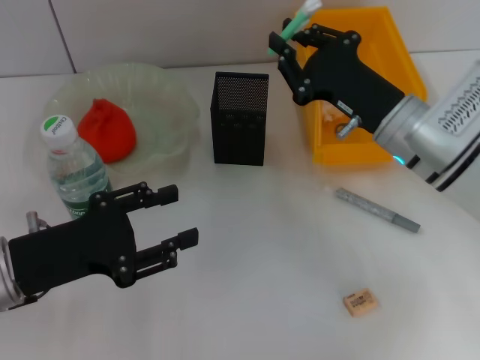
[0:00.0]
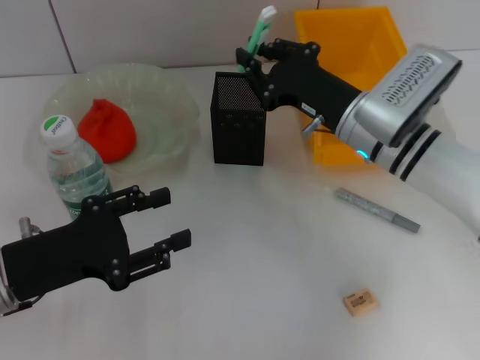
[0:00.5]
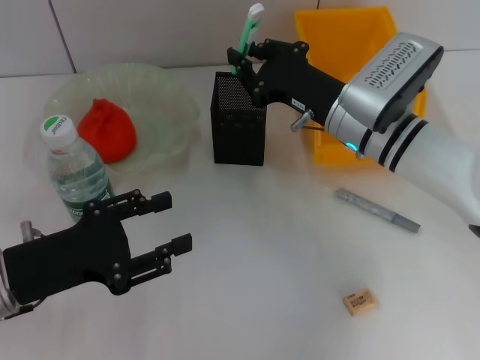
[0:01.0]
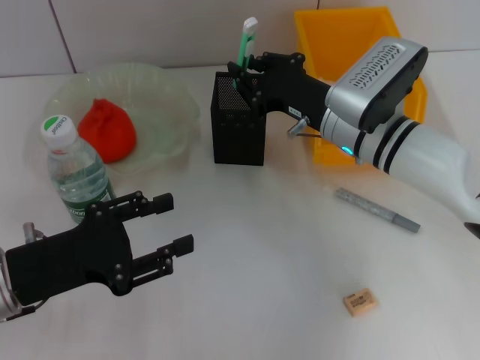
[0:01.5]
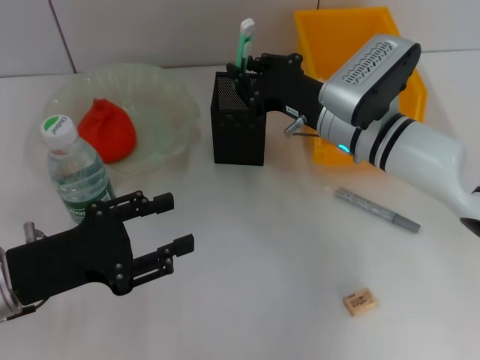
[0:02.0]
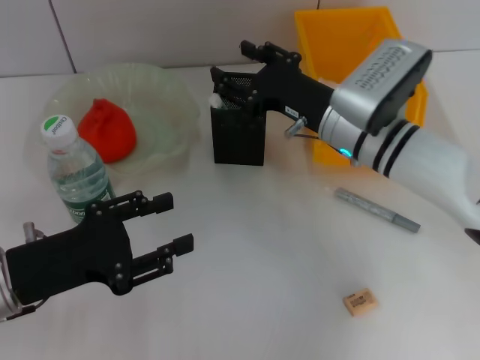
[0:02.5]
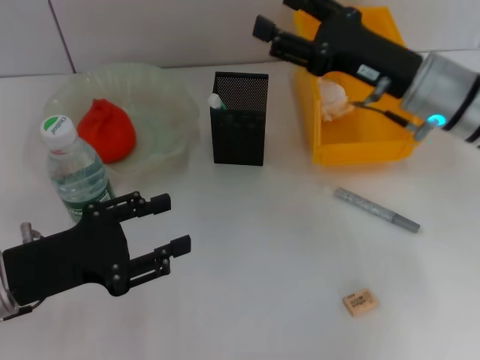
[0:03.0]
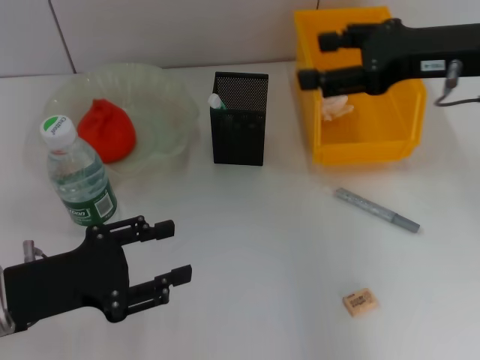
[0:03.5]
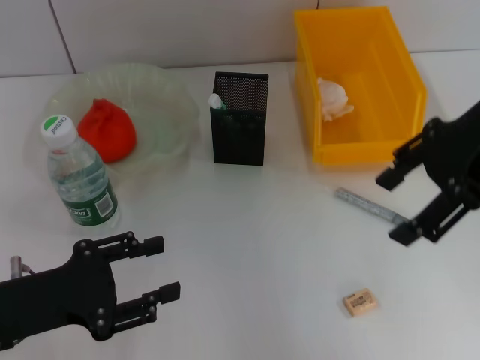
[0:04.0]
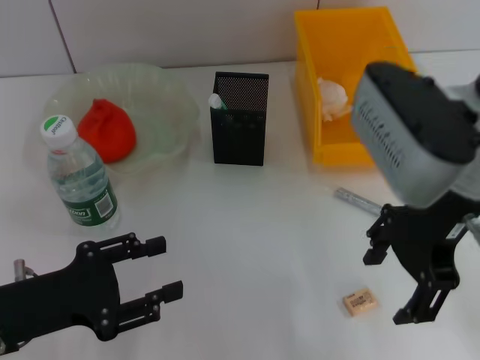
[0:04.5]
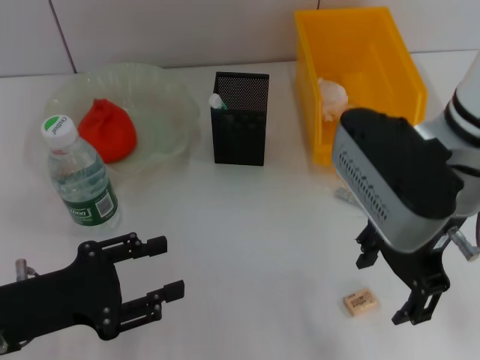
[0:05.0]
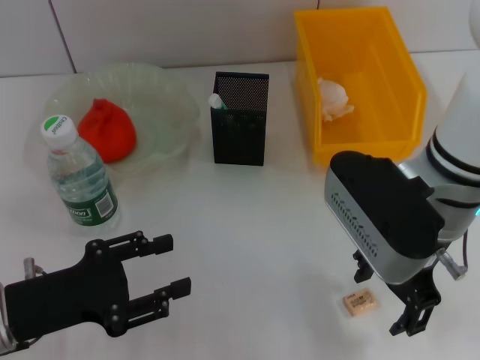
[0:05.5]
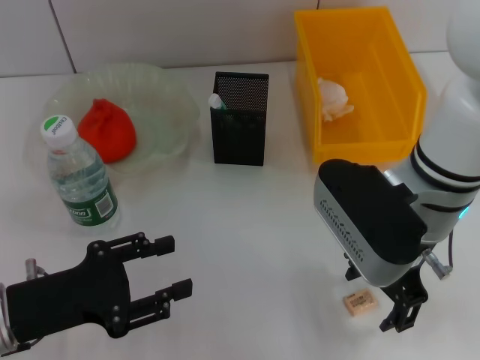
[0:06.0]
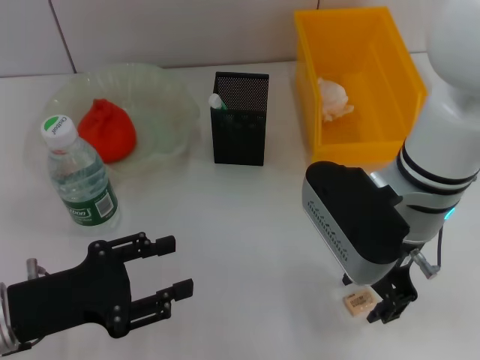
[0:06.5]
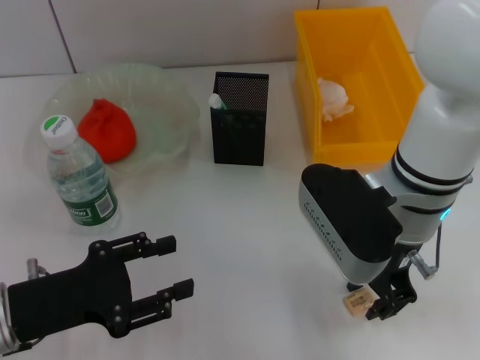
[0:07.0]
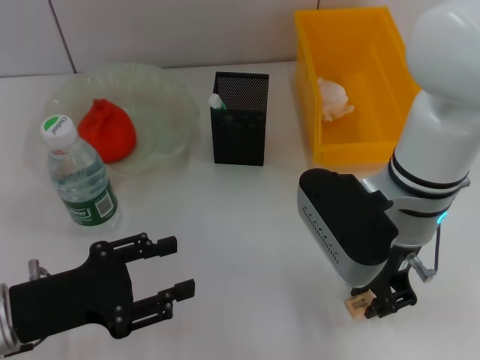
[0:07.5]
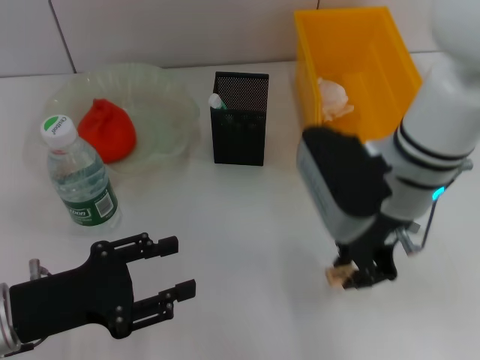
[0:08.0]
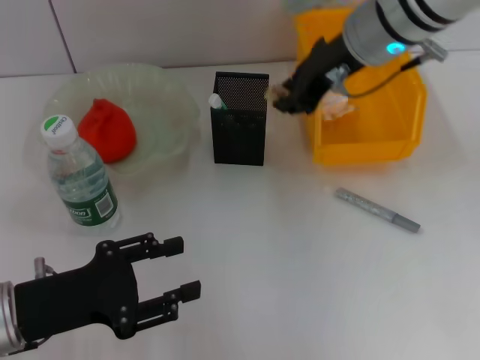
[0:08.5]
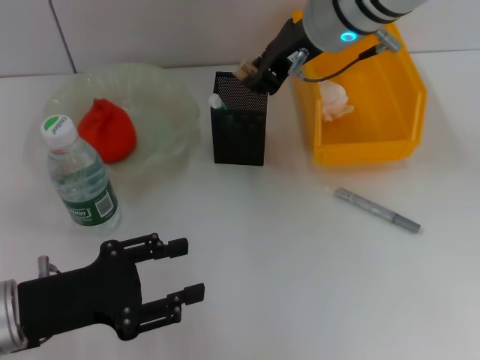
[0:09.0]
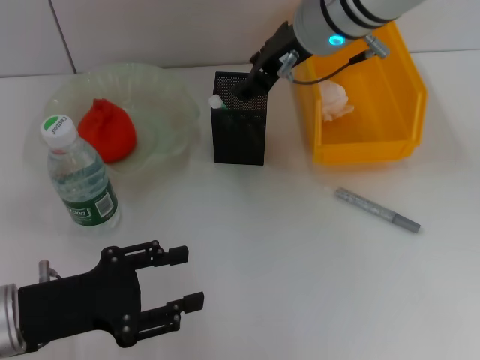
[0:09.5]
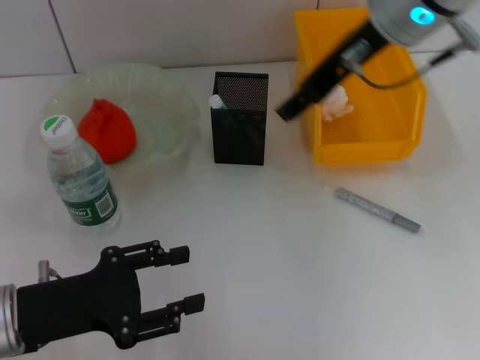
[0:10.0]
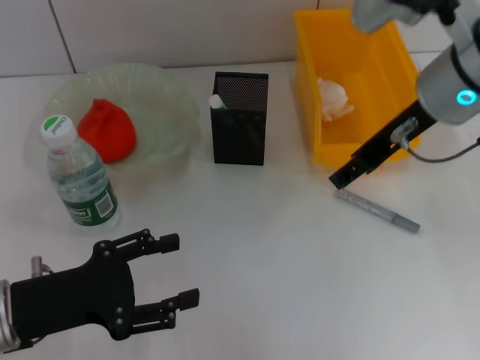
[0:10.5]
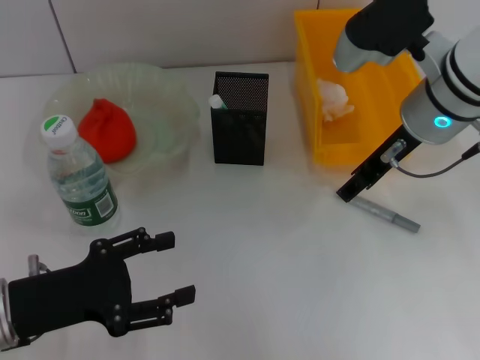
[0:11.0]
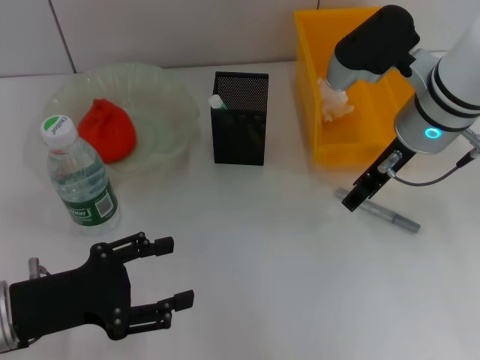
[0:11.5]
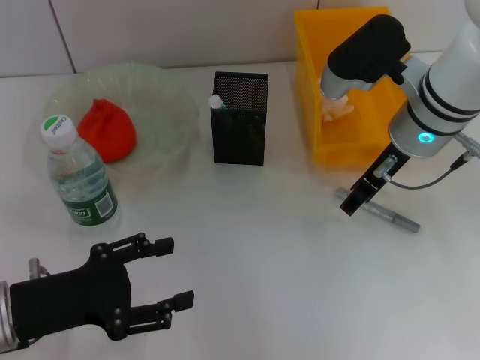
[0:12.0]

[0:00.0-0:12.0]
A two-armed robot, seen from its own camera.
Step, 0.0 to 2.0 s: Place the blue utility knife into the pen holder with the right hand.
Step, 2.5 to 7.5 s: Grab the eraser with the right hand.
Step, 8.0 to 9.0 s: Put the eraser into the pen holder with the right hand.
0.0 to 2.0 s: The right gripper shifts by about 5 cm.
2.0 to 4.0 s: The right gripper travels upward and to the right by roughly 20 cm, and opens.
4.0 to 6.0 s: The right gripper moves downward and to the left, roughly 15 cm.
6.0 to 8.0 s: The right gripper closes.
8.0 to 10.0 s: The right gripper goes roughly 15 cm upward and forward, and opens.
10.0 to 12.0 s: The right gripper moves downward, roughly 10 cm.

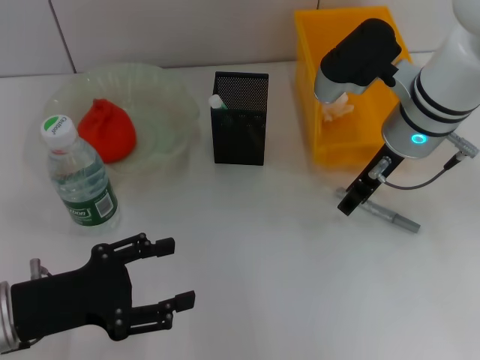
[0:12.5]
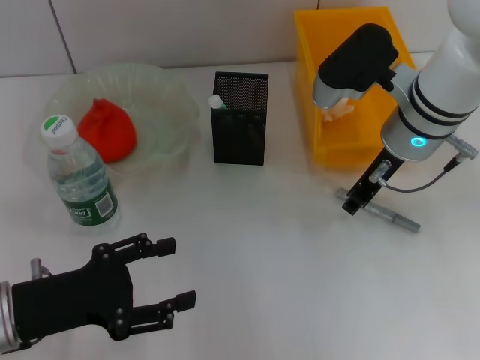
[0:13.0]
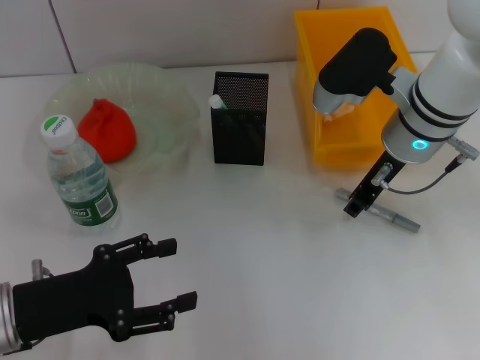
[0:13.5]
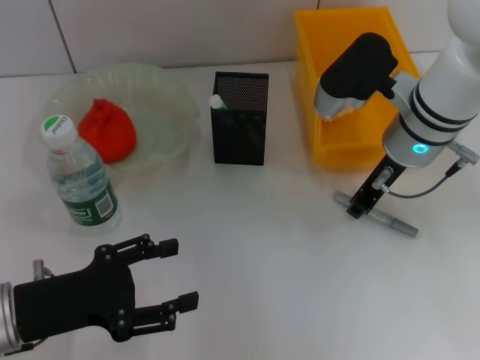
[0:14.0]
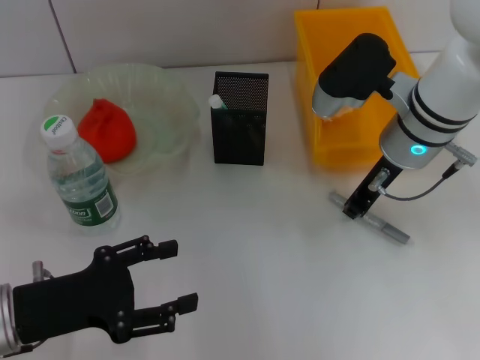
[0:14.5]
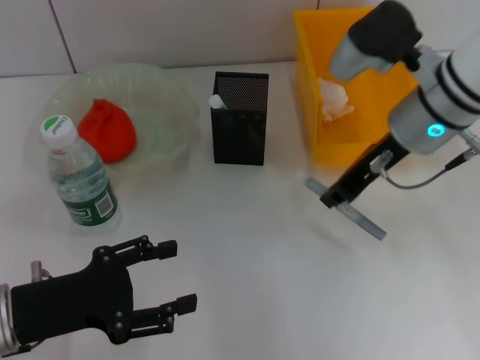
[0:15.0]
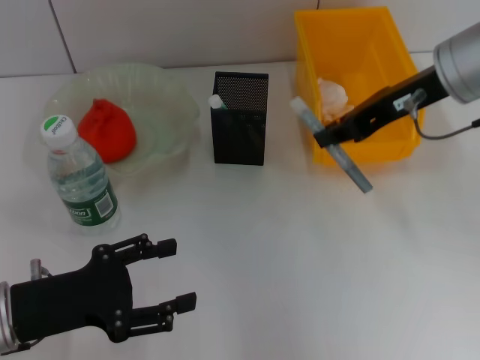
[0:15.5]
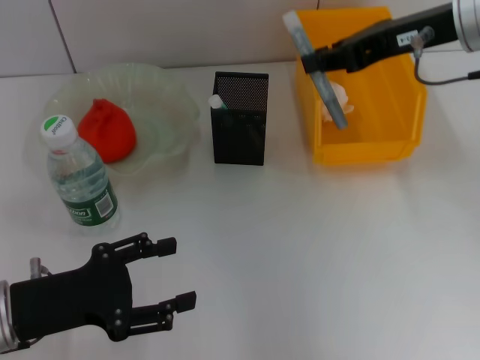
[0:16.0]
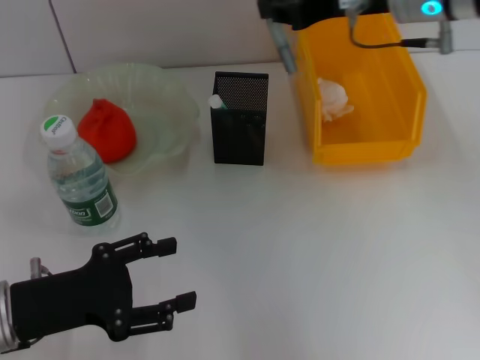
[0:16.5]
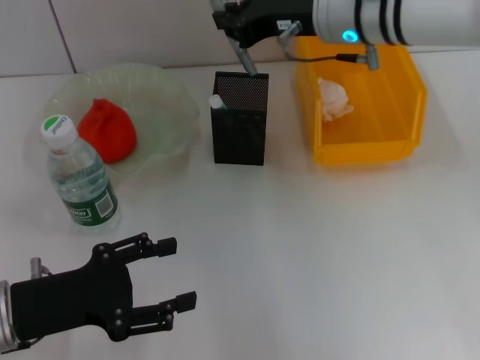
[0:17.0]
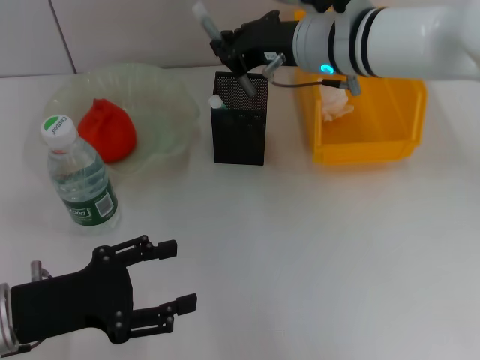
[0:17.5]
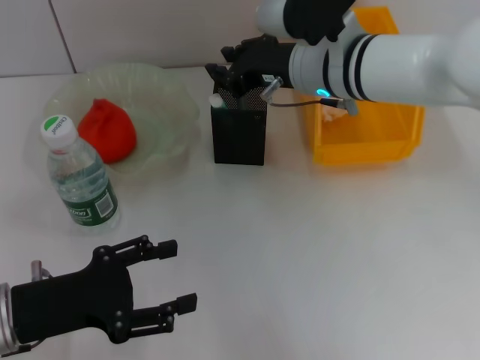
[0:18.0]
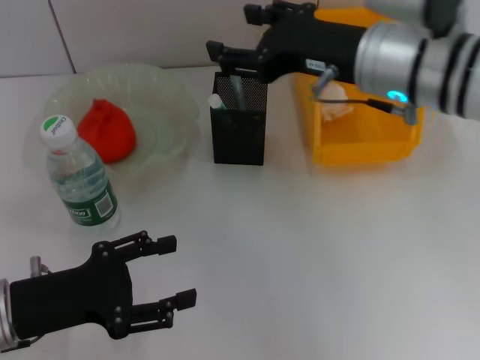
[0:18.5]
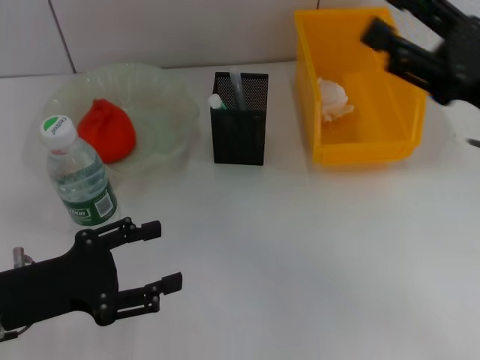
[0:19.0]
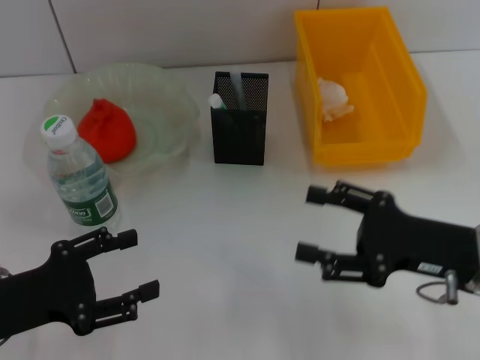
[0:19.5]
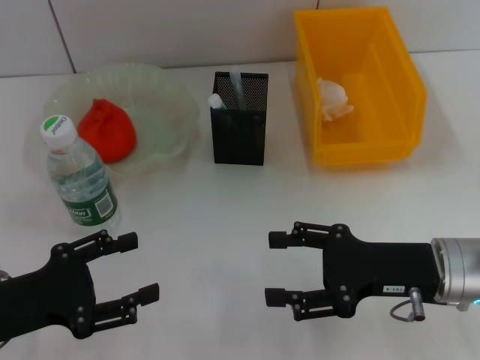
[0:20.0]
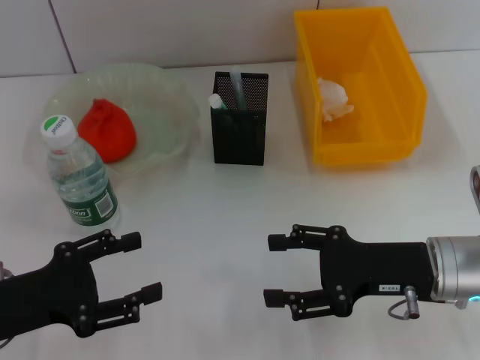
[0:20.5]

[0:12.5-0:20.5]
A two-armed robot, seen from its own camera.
Step, 12.5 to 14.5 s: Grab the gray glue with the right hand.
Step, 15.0 to 18.0 s: Place the gray glue into the pen holder with the right hand.
12.5 to 14.5 s: The right gripper closes its fingers.
14.5 to 16.5 s: The right gripper is displaced upward by roughly 10 cm.
16.5 to 18.5 s: The right gripper shifts some 5 cm backward, and opens its fingers.
18.5 to 20.5 s: The right gripper is displaced downward, backward and to the right by about 20 cm.

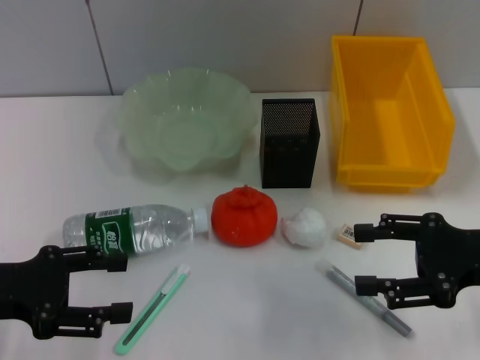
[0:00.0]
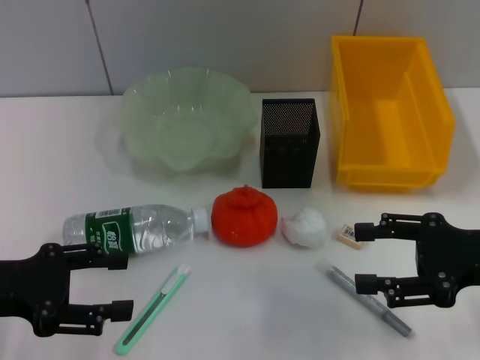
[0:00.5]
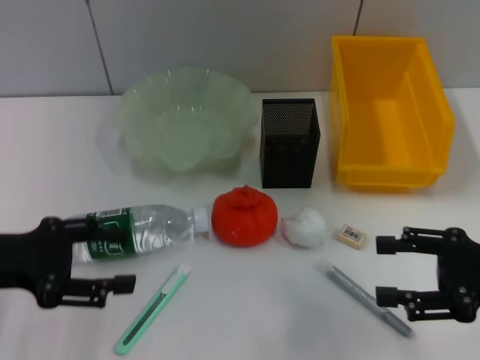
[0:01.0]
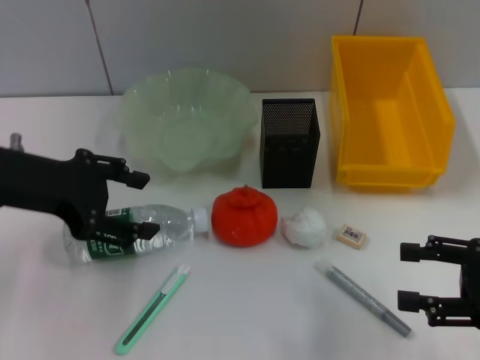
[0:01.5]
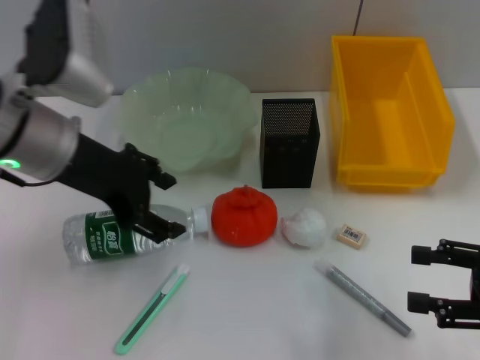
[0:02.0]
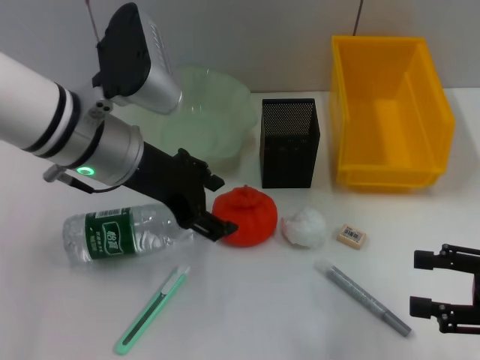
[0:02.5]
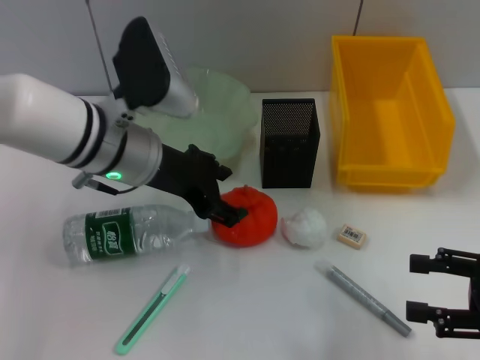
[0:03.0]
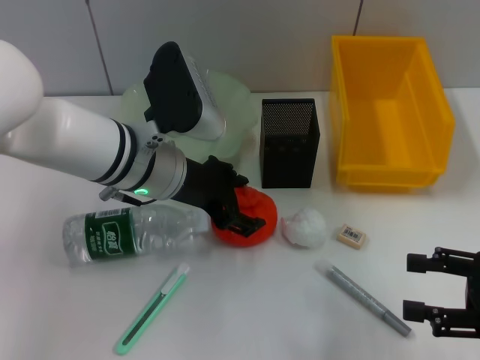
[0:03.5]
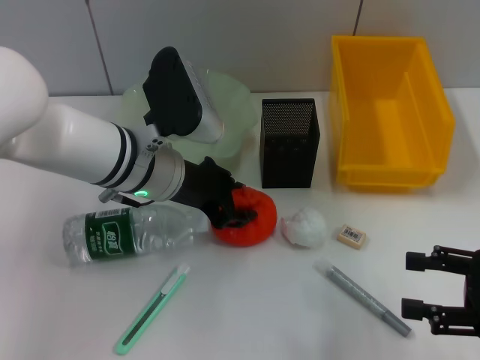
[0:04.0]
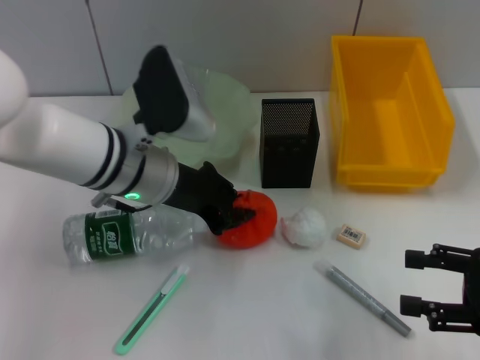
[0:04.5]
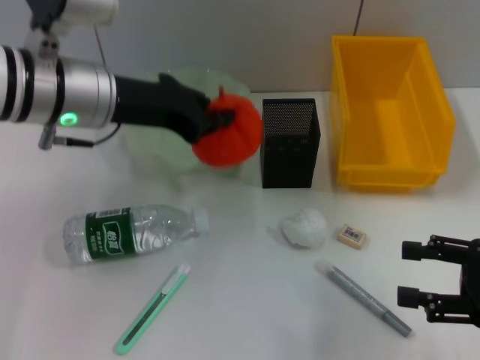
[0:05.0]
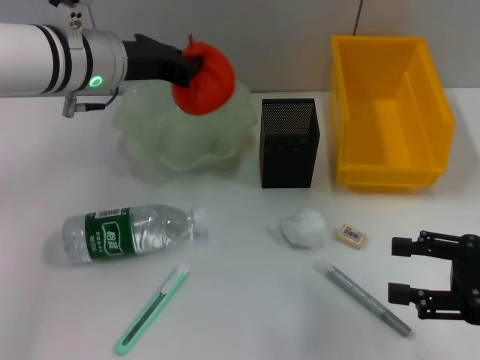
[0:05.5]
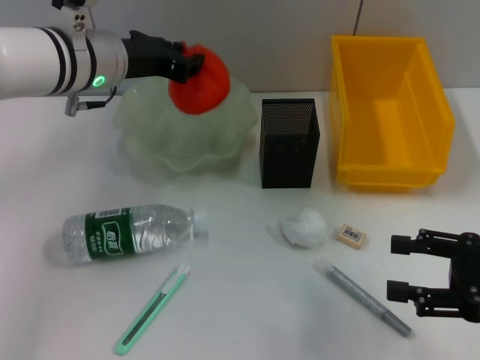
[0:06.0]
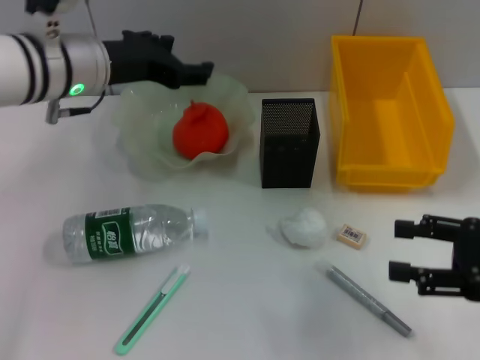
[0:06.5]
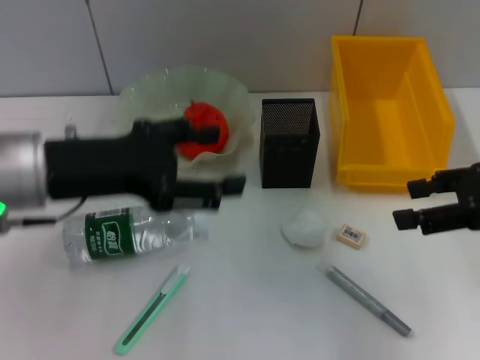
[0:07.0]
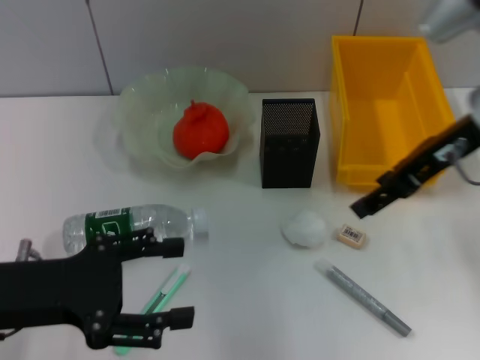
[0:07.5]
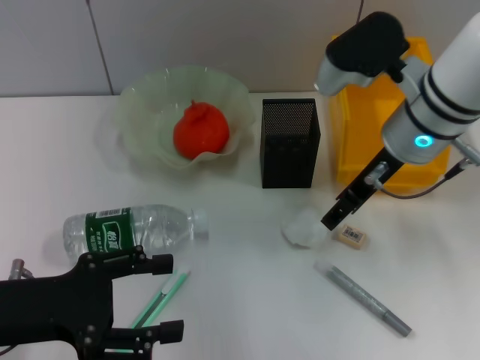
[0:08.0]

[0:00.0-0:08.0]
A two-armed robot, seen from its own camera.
Step, 0.0 to 4.0 s: Grab the orange with the left hand.
Step, 4.5 to 6.0 s: Place the orange into the fruit bowl with the left hand.
0.0 to 2.0 s: The right gripper shifts by approximately 5 cm. The left gripper shifts approximately 20 cm to the right, upward and forward.
2.0 to 4.0 s: The left gripper shifts roughly 10 cm downward and to the right.
4.0 to 6.0 s: The left gripper is displaced upward and forward by about 10 cm, and closes its fingers.
6.0 to 8.0 s: The left gripper is displaced backward and to the left by roughly 25 cm, and opens up. The right gripper shifts some 25 cm to the left, forward and upward.
